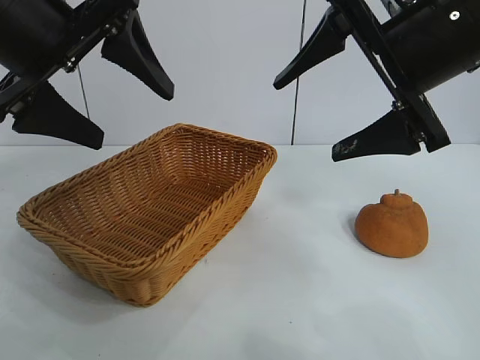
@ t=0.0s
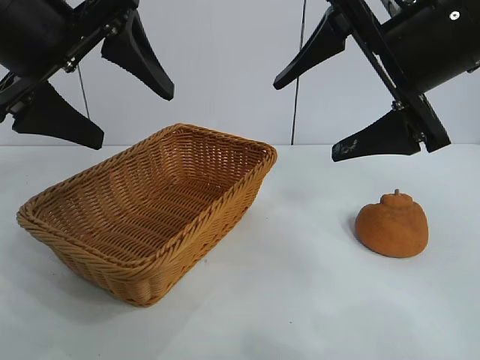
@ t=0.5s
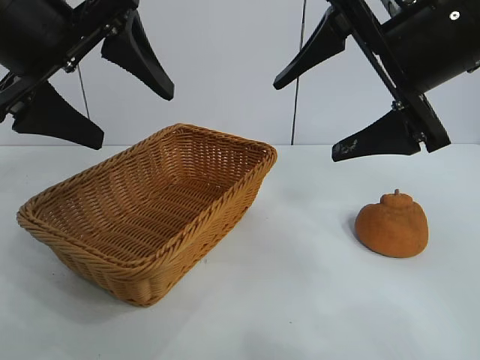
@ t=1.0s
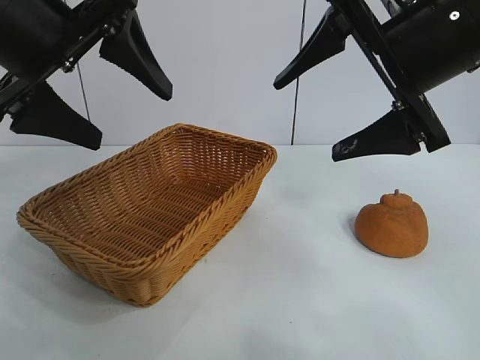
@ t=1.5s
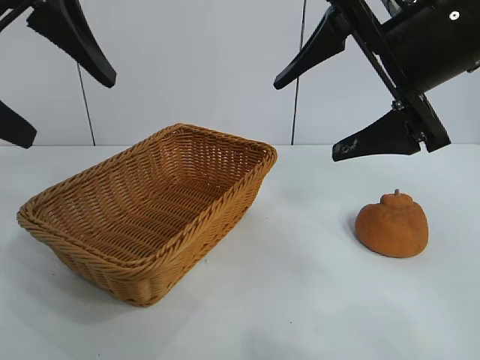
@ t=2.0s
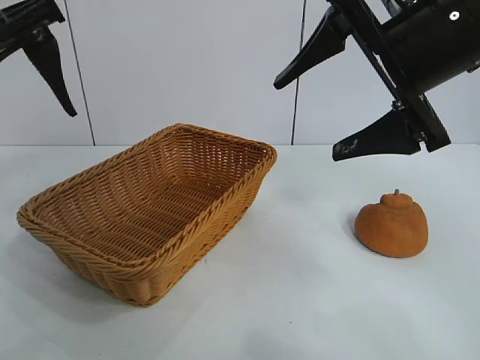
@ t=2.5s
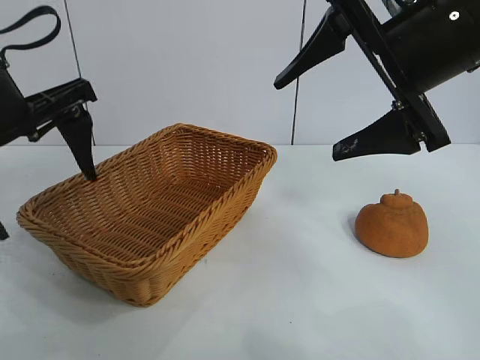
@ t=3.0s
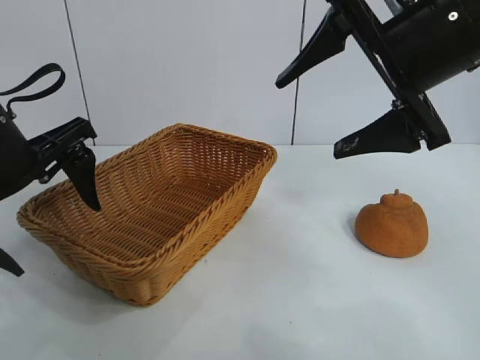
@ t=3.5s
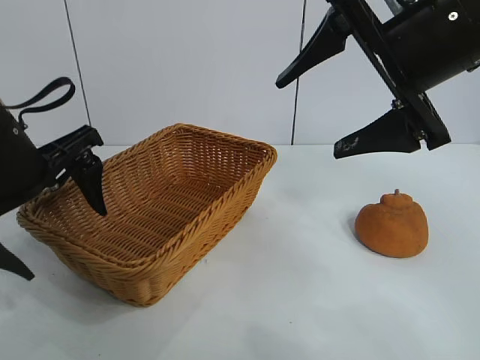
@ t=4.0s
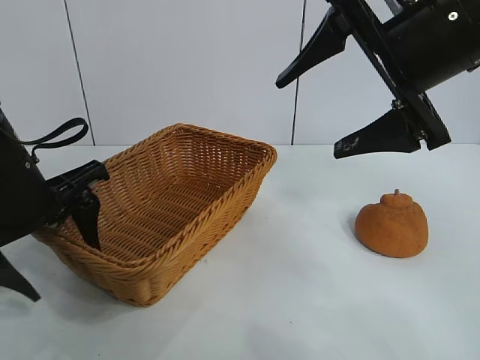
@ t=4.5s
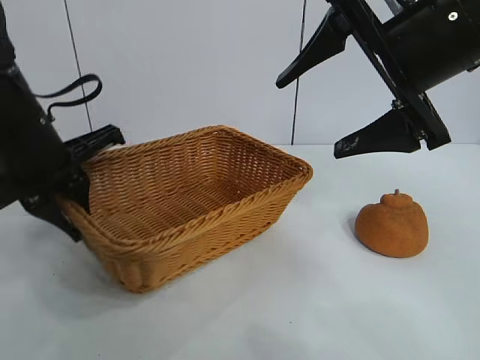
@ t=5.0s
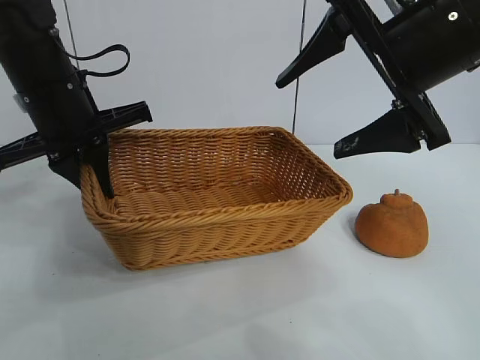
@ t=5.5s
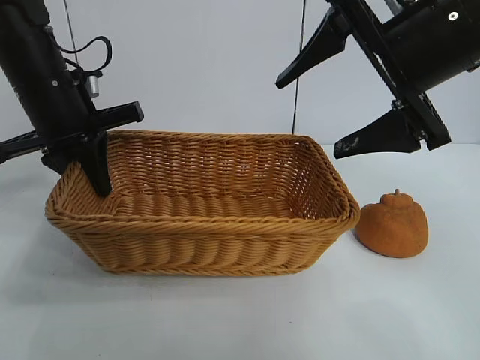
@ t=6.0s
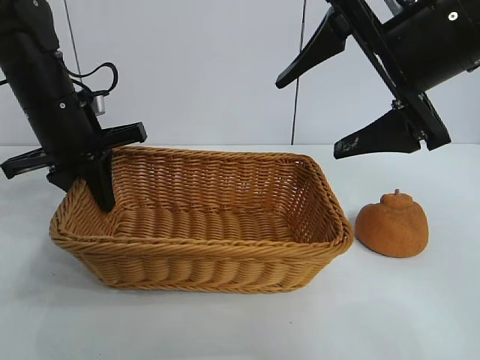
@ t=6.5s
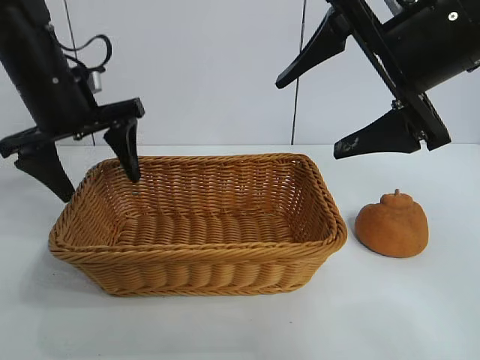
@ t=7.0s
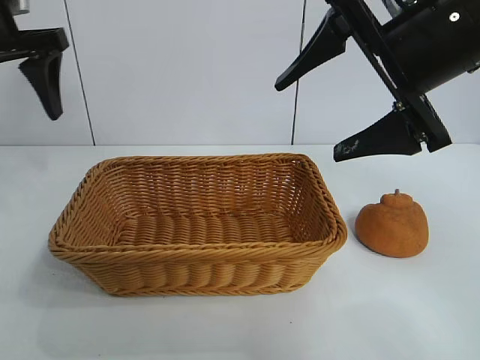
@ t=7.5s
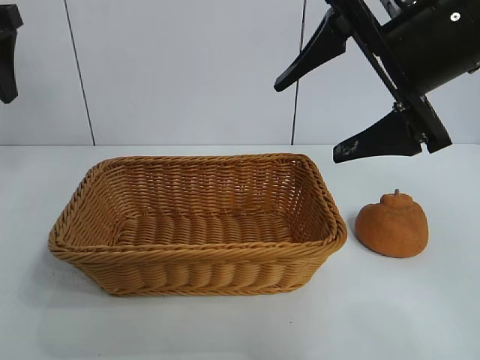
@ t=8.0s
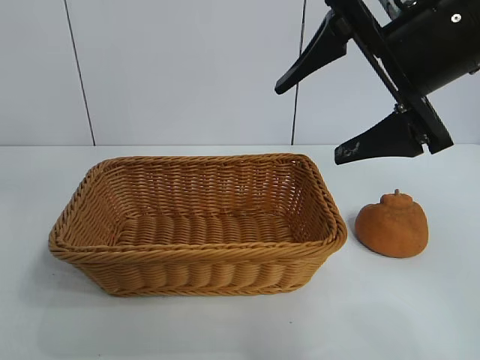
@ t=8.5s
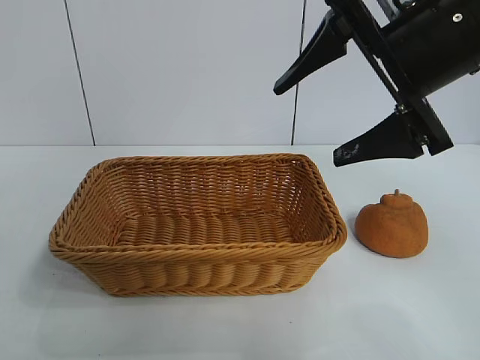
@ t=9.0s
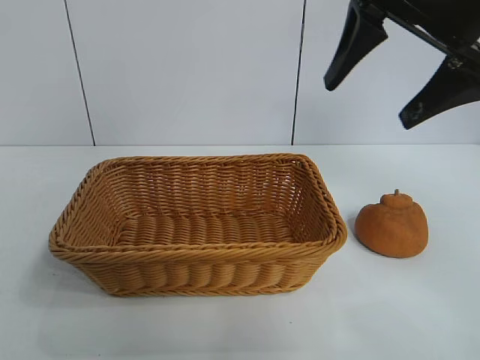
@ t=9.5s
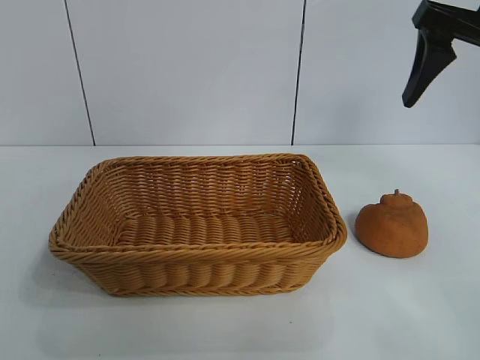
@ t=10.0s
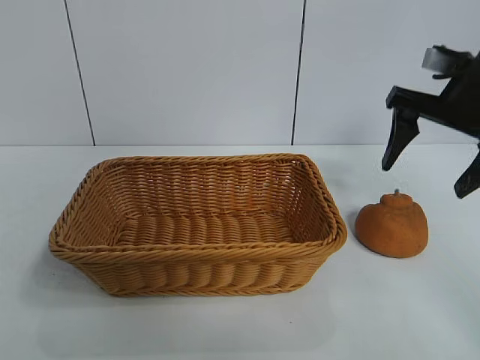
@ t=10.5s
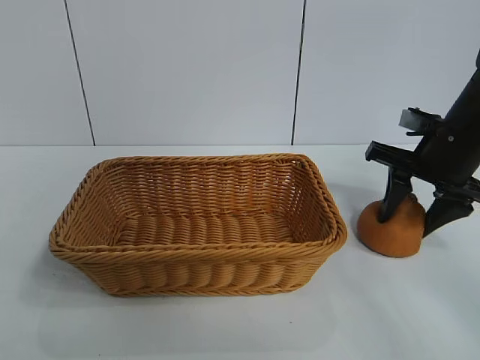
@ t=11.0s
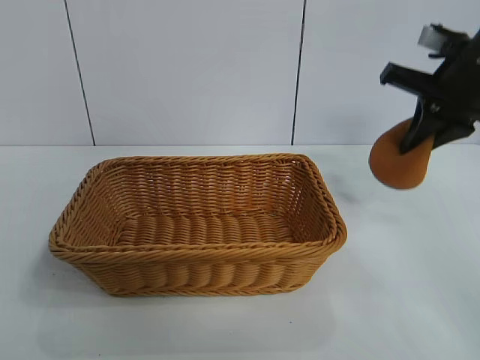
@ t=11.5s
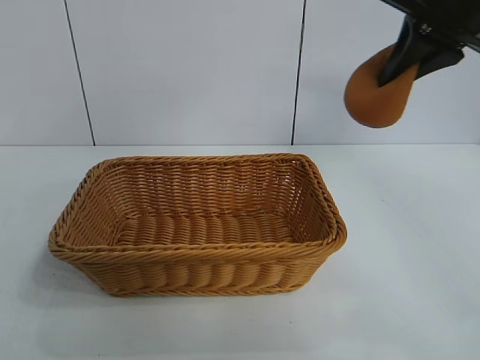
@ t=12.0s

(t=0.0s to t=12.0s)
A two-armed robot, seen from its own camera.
Task of the whole recording: pick up the orange and put it into the basket.
Step, t=1.5s - t=4.5s: Grasp the basket with left gripper.
Step, t=5.0s - t=6.5s: Place the basket in the center of view with left gripper.
Step, t=7.0s - t=11.0s: Grasp the orange with right gripper.

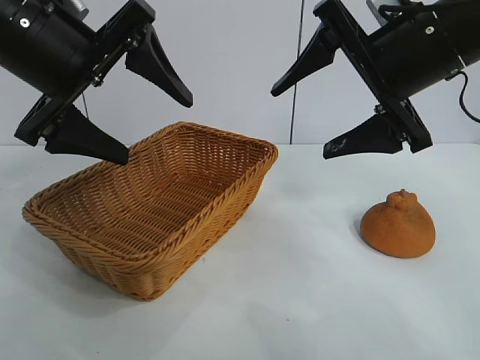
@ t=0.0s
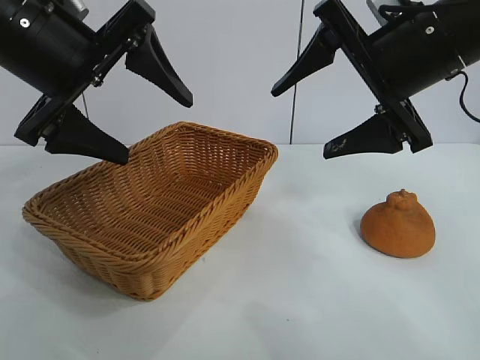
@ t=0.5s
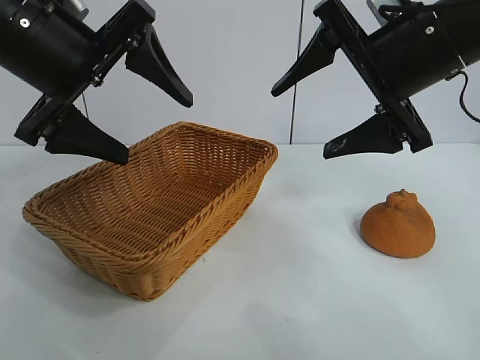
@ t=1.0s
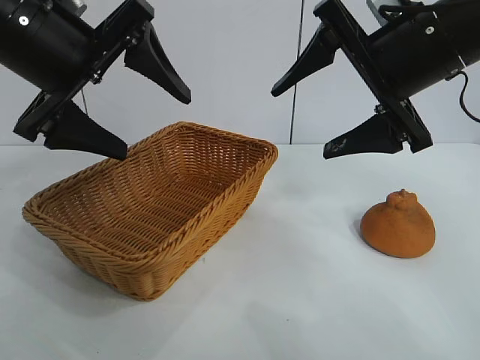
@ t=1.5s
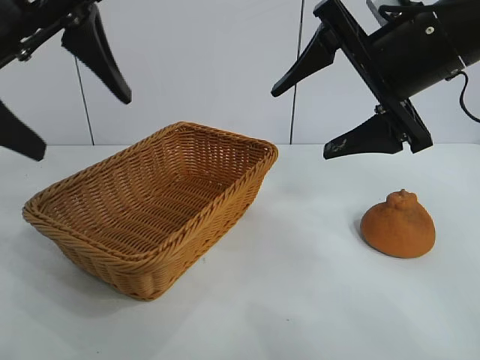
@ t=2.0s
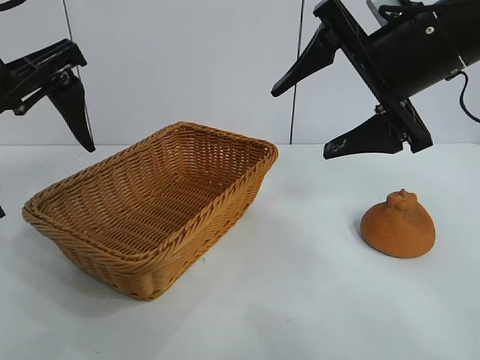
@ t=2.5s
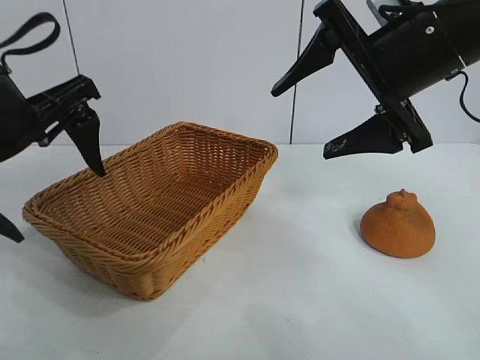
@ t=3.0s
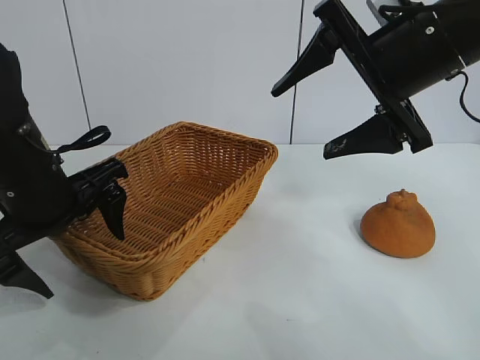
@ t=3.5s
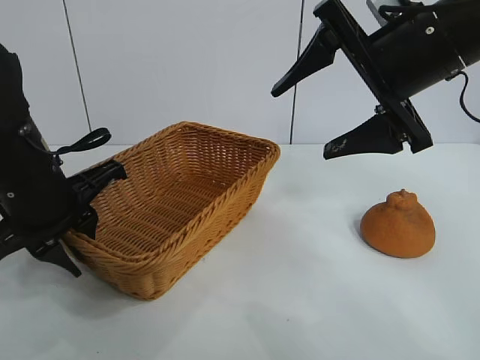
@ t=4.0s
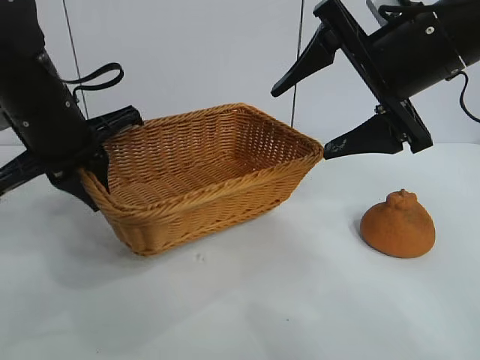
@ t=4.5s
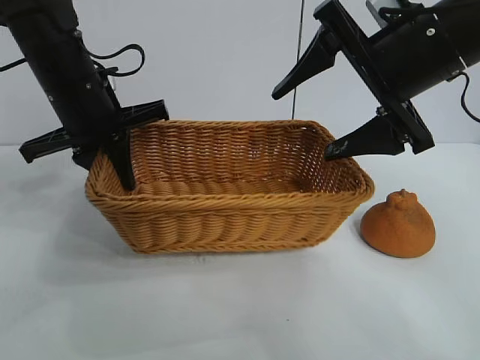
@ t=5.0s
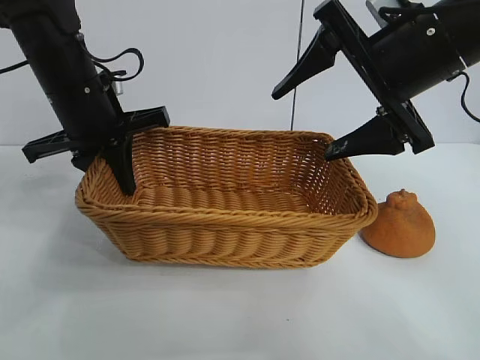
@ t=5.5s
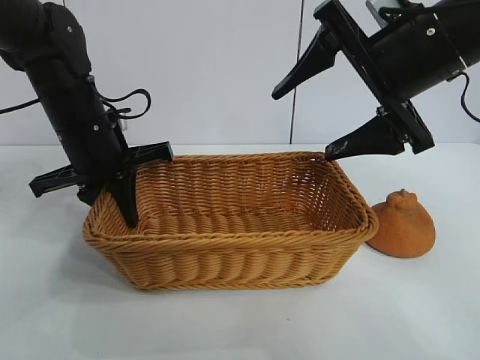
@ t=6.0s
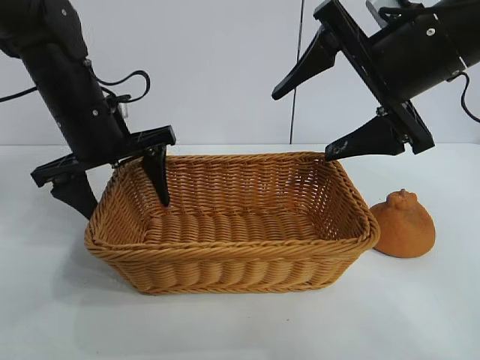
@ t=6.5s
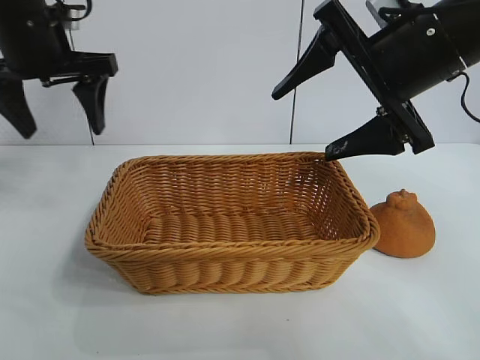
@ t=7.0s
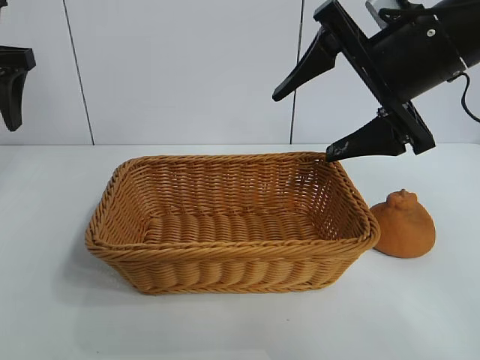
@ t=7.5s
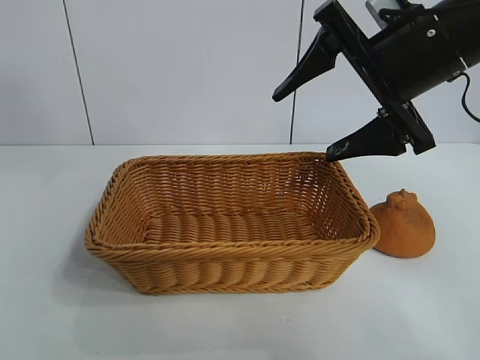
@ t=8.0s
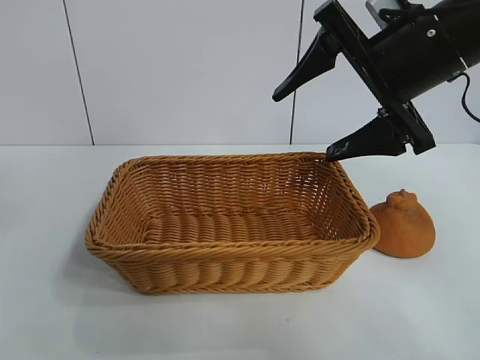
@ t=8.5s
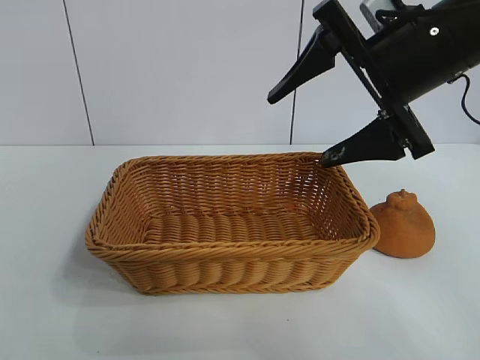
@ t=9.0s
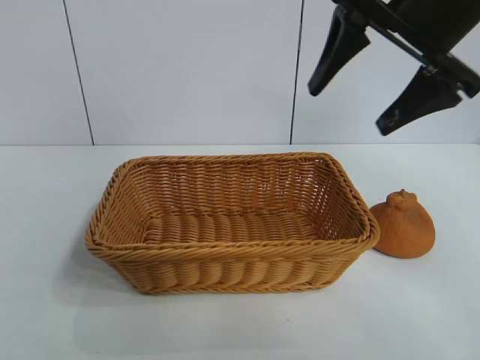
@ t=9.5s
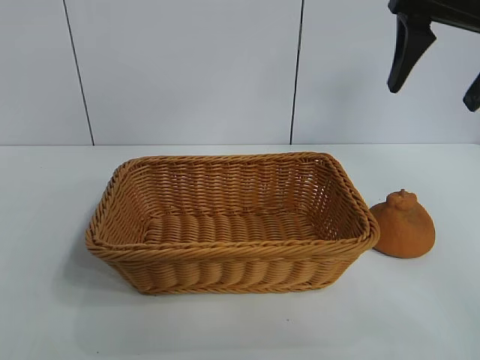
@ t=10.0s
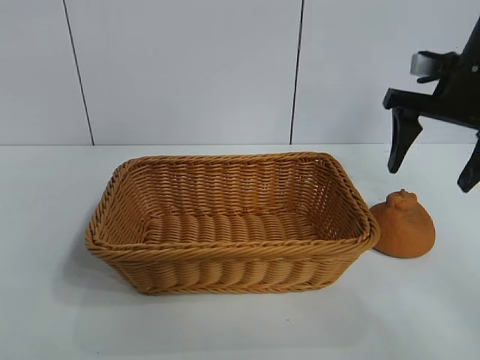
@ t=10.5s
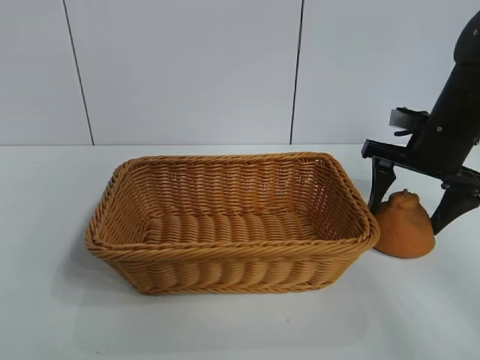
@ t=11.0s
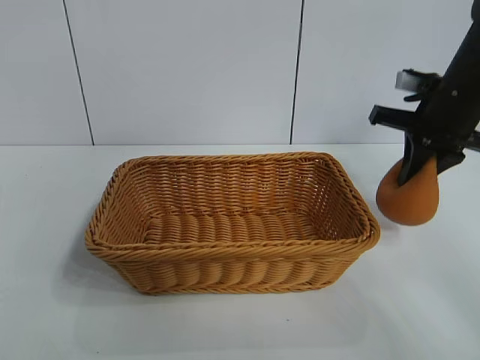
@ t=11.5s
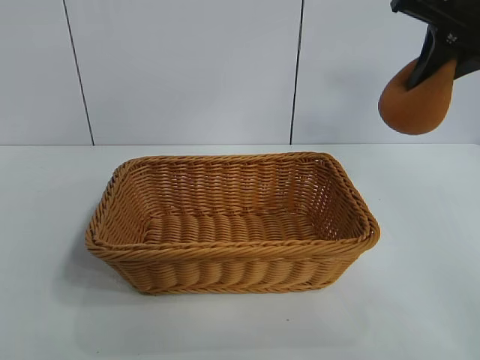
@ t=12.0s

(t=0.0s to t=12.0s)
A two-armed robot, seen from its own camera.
Task of the whole recording: pick up the orange and put it into the basket.
Step, t=1.5s - t=4.0s: Grasp the basket with left gripper.
Step, t=4.5s - t=6.5s: Place the basket in the center of view with left gripper.
Step, t=7.0s - t=11.0s: Grasp the orange with right gripper.

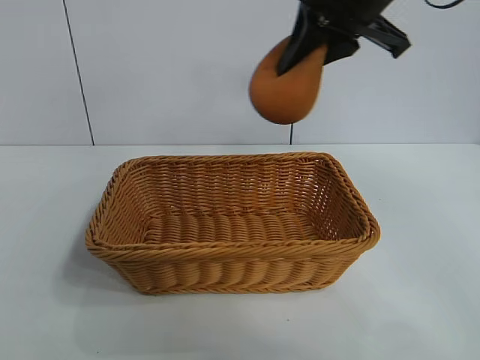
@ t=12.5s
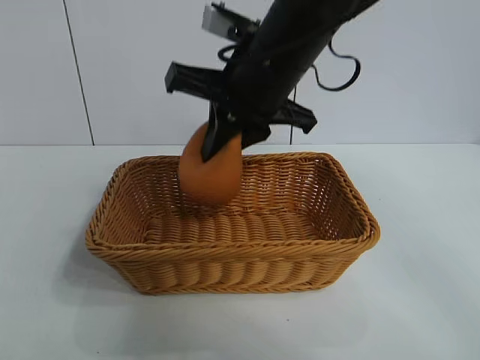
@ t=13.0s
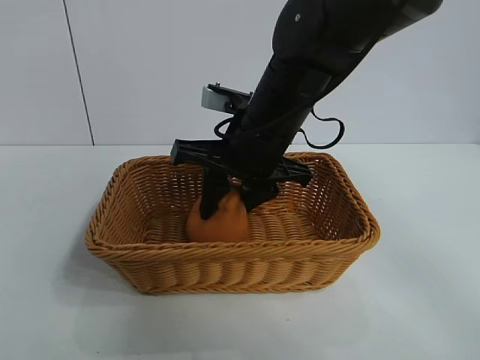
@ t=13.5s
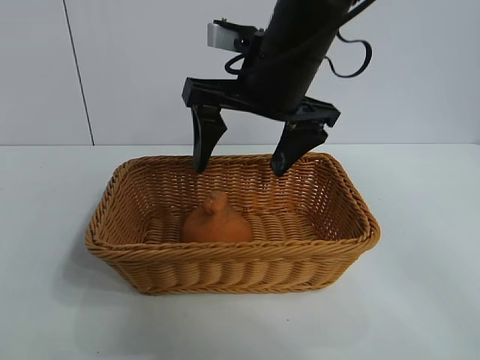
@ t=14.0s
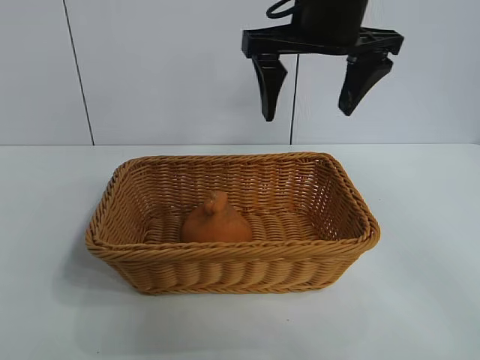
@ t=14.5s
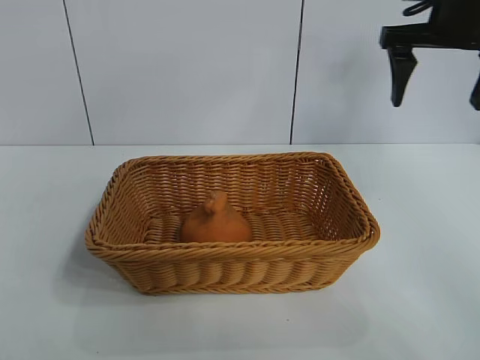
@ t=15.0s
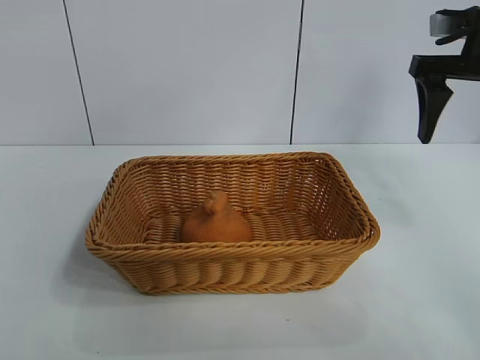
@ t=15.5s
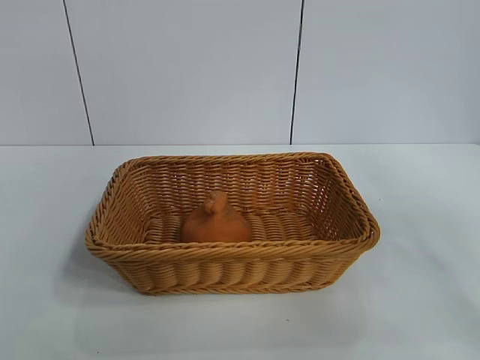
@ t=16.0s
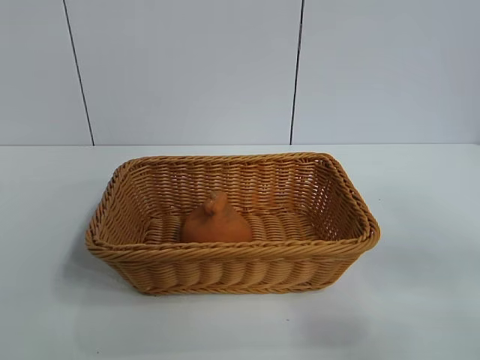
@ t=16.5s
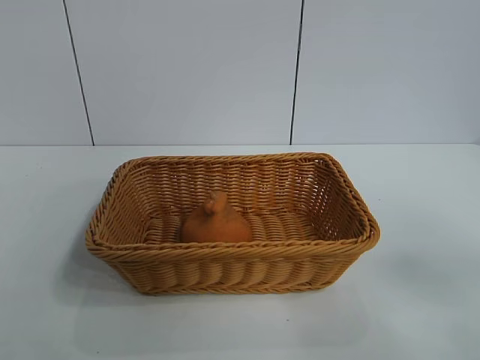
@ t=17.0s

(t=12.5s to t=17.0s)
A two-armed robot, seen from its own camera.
Task of the whole recording: pick up the orange and put it into the basket.
Step, t=12.5s - t=14.0s: Place the orange in the basket with right gripper.
